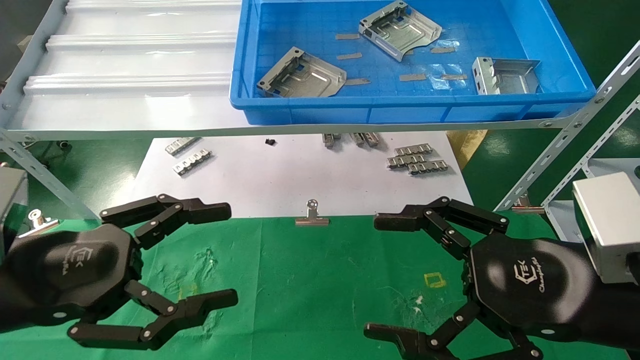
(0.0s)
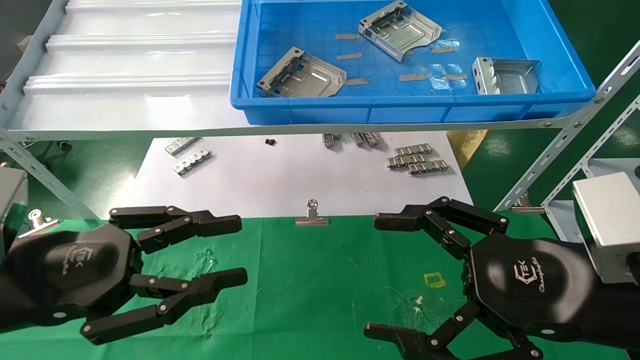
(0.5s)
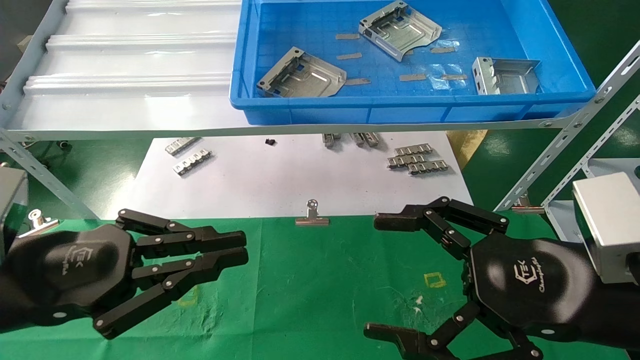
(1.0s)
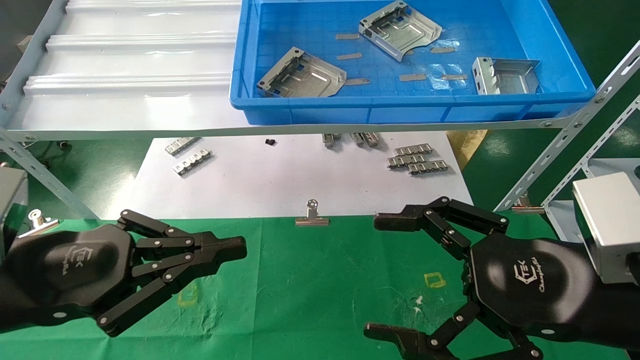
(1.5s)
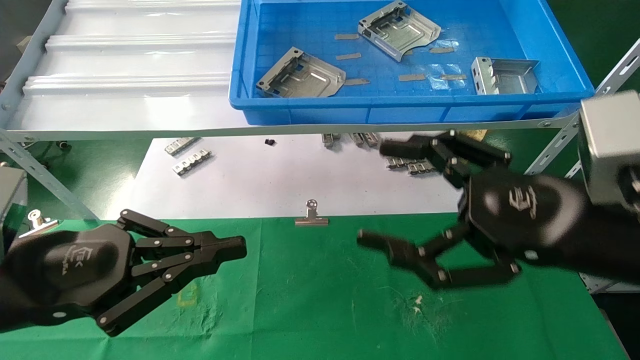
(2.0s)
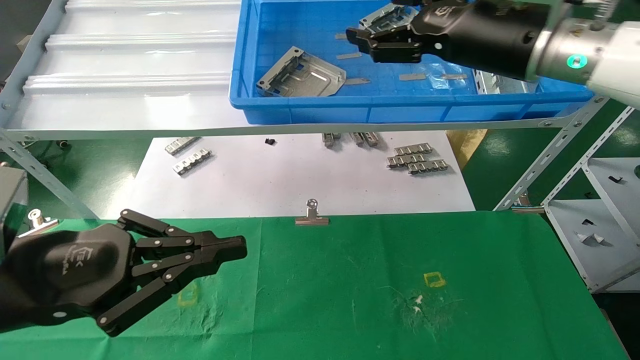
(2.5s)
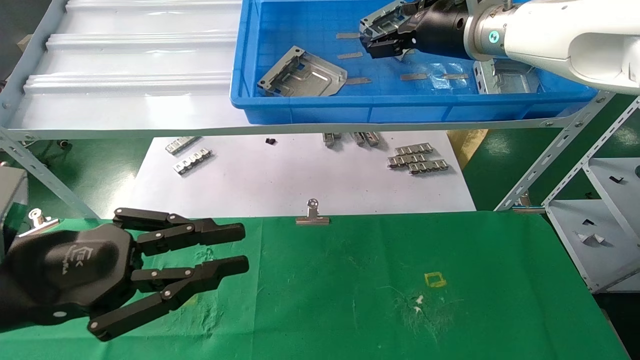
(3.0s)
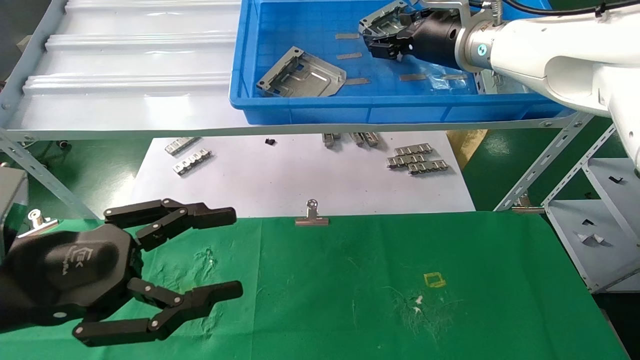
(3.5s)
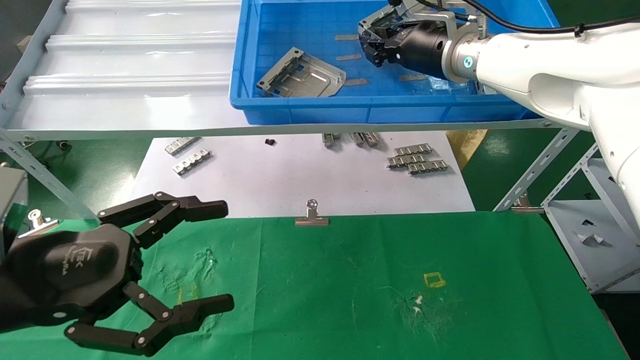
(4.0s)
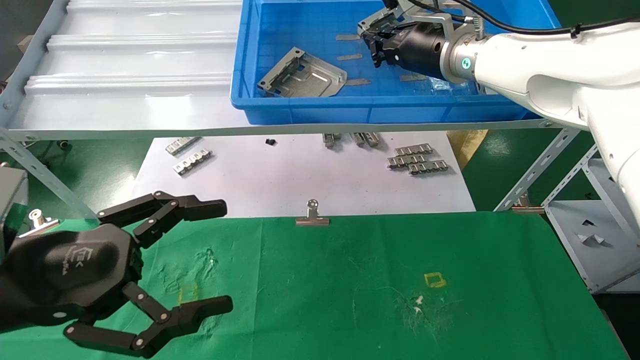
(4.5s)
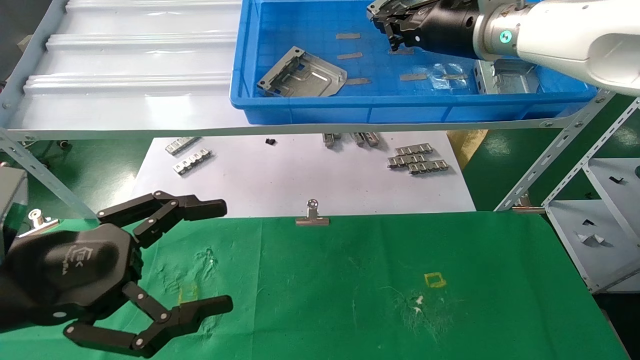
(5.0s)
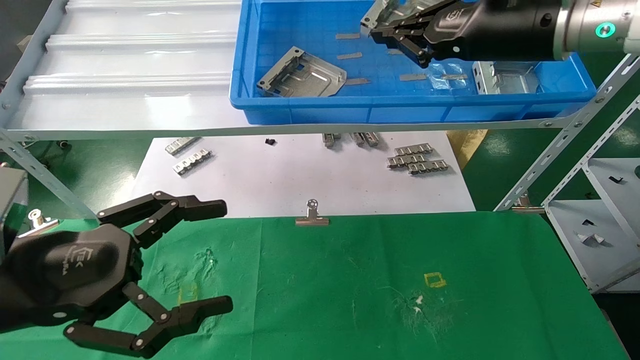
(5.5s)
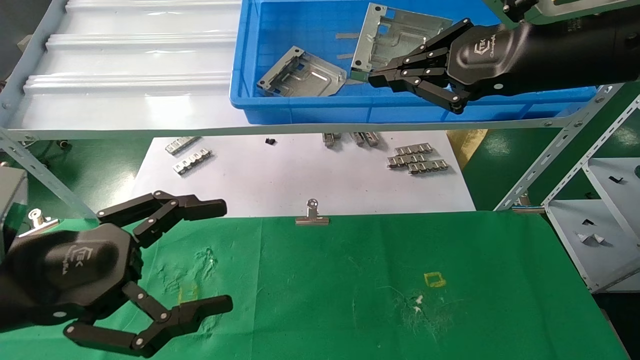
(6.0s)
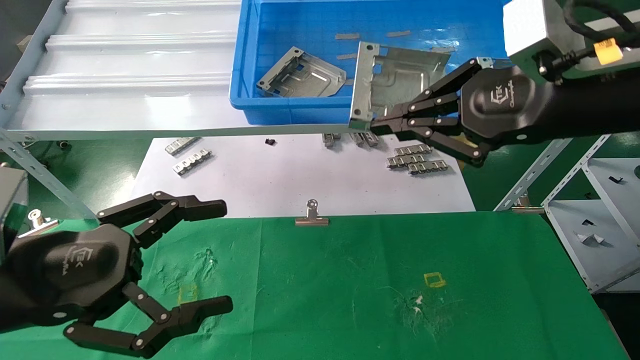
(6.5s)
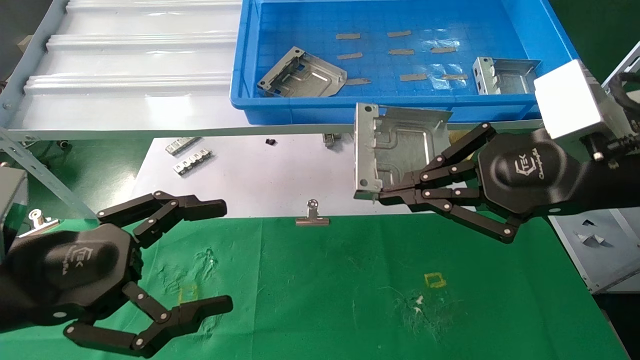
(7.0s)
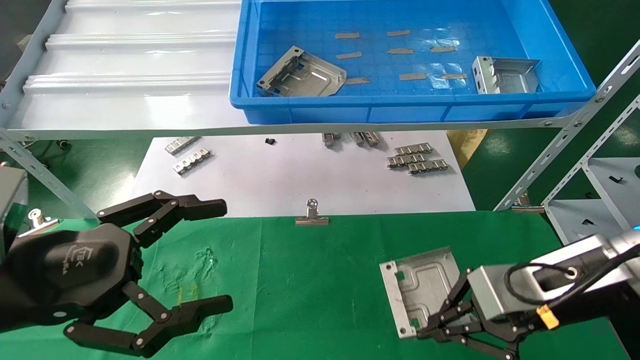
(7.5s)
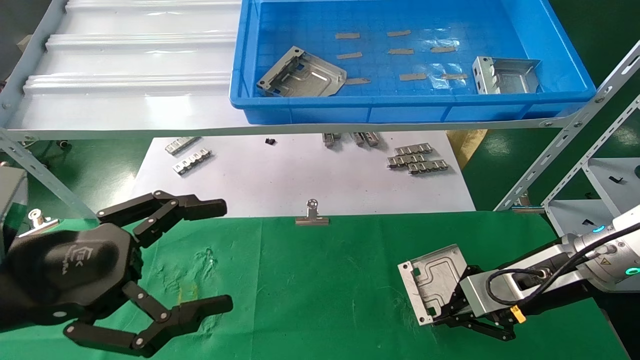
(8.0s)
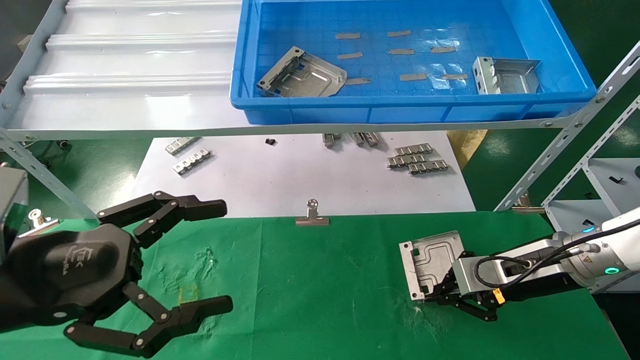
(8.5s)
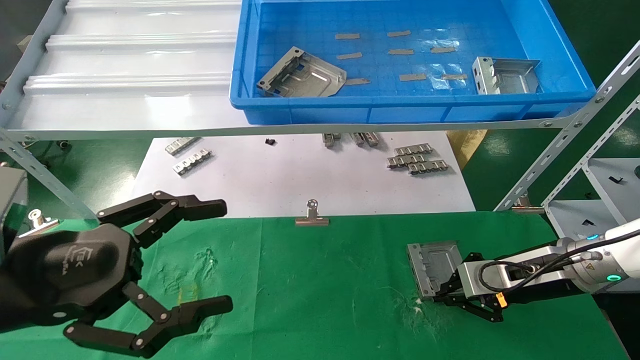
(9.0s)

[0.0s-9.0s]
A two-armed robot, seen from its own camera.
Task of the whole recording: use the mechanical arm to pick up the parts and place them on the table.
Step, 2.0s to 5.5s: Pick up the hard drive bracket from the feeding area.
0.0s to 2.0s: The left gripper closes up. Meanwhile the right gripper goes roughly 5 cm upward.
2.0s to 4.5s: The right gripper moves forward and upward, about 25 cm, and closes; the left gripper opens its fingers.
4.5s to 7.0s: The right gripper heads backward, covering roughly 25 cm.
7.0s to 9.0s: The right gripper shifts approximately 25 cm downward and forward.

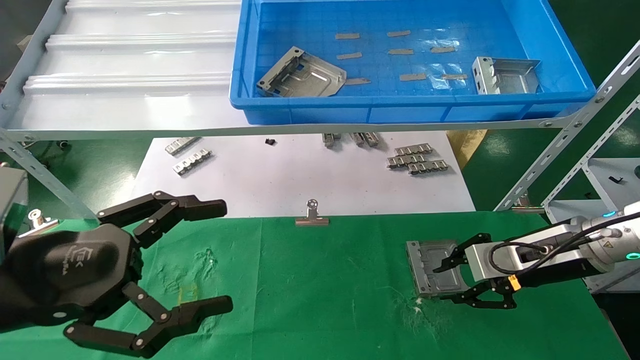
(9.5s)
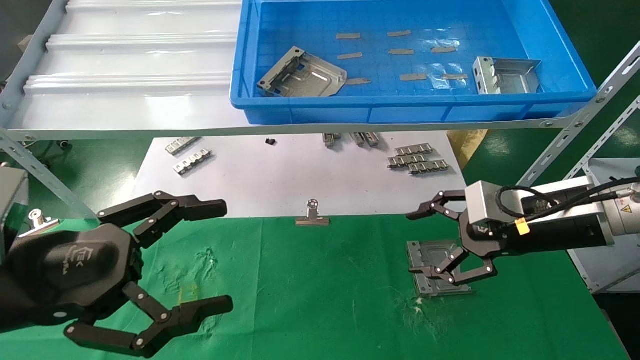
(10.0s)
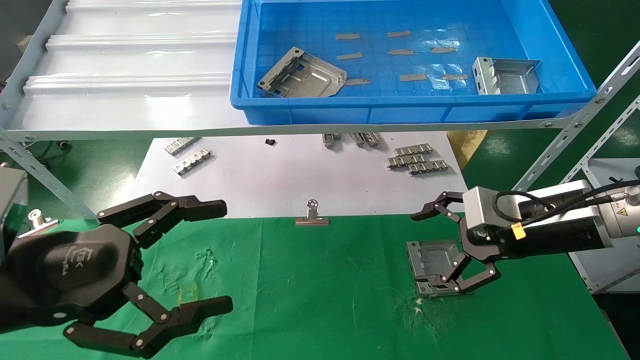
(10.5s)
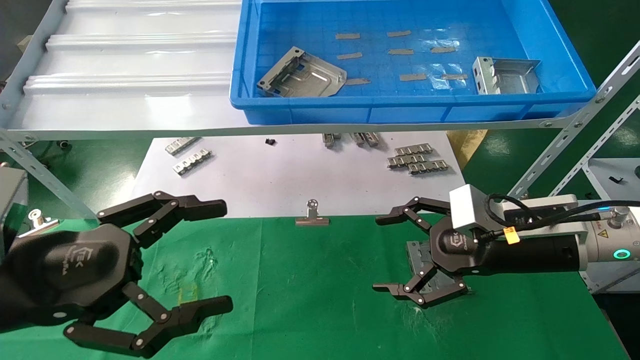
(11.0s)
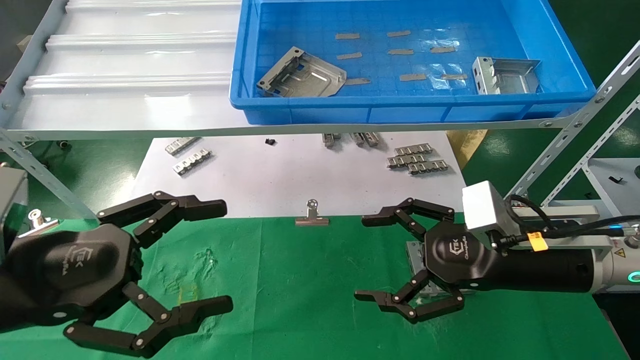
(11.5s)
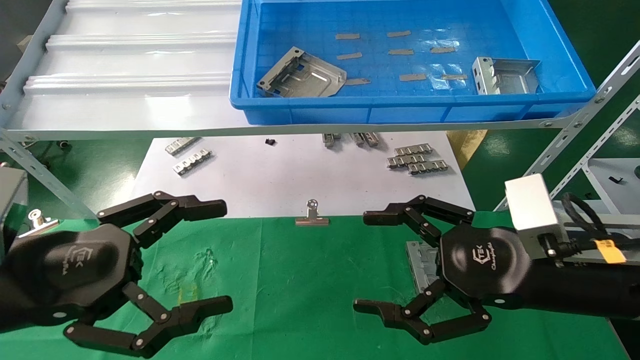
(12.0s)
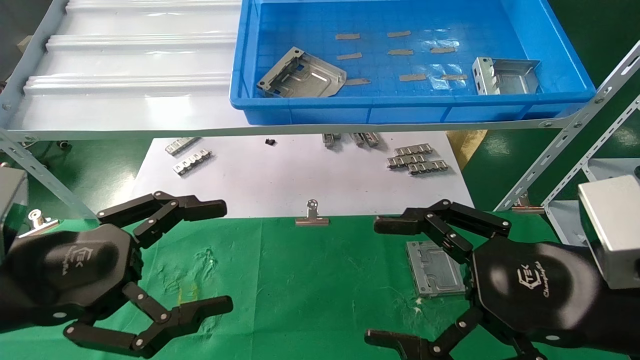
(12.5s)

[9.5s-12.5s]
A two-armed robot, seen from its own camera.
Task of the whole recording: use the mechanical arm to pick up the parts and place them on the table.
9.5s to 11.0s: The right gripper travels to the left by approximately 5 cm, and opens.
11.0s to 12.5s: The right gripper is displaced backward by roughly 15 cm.
